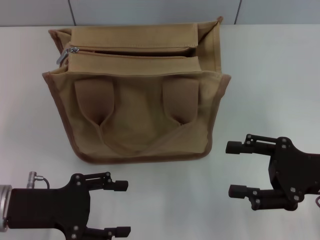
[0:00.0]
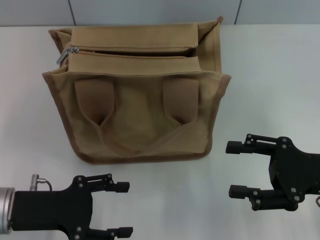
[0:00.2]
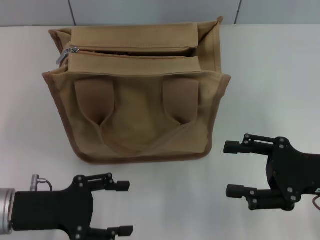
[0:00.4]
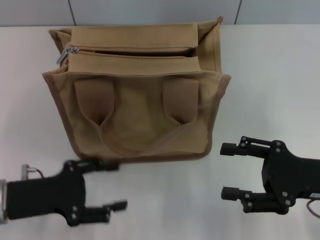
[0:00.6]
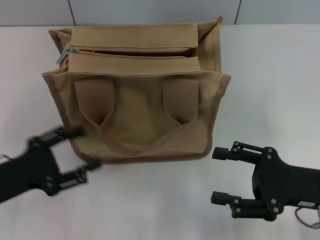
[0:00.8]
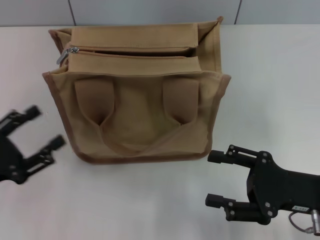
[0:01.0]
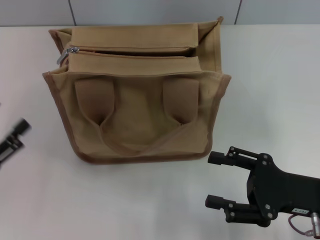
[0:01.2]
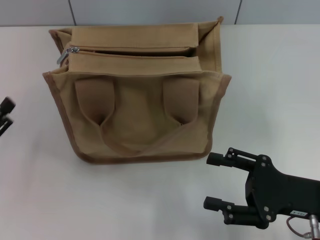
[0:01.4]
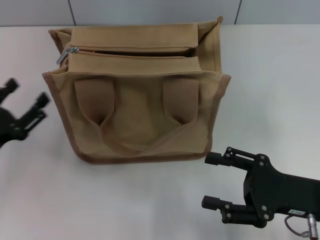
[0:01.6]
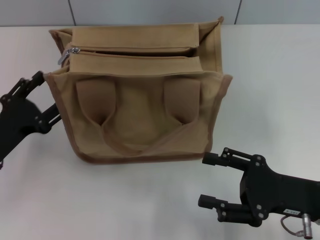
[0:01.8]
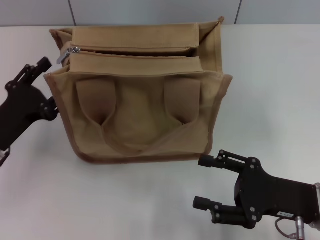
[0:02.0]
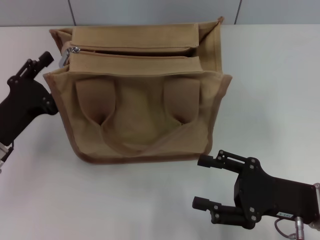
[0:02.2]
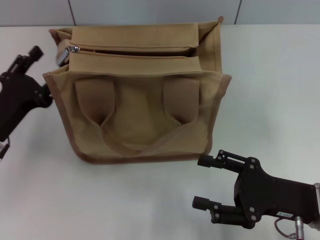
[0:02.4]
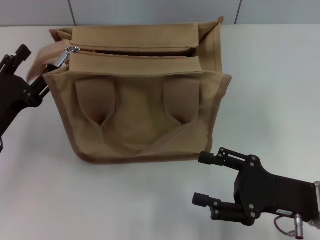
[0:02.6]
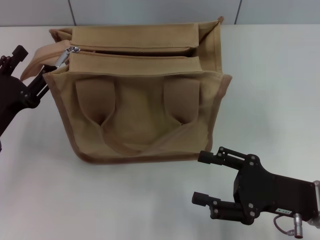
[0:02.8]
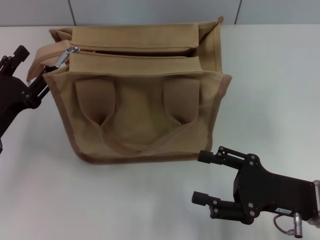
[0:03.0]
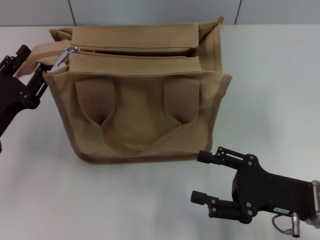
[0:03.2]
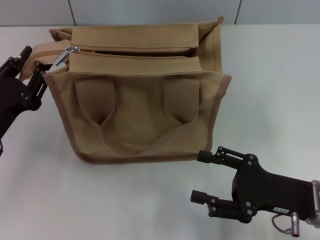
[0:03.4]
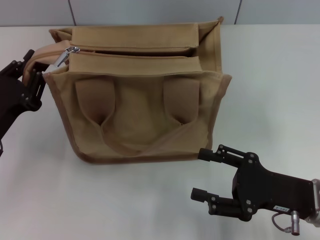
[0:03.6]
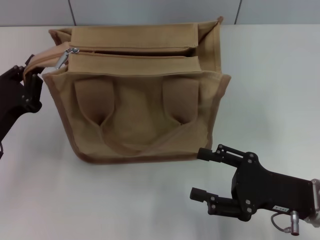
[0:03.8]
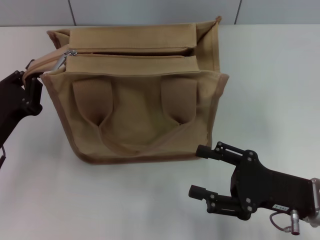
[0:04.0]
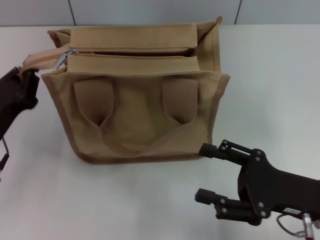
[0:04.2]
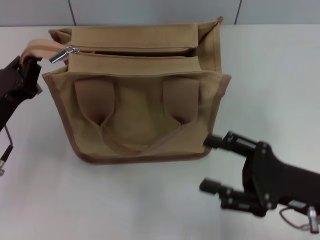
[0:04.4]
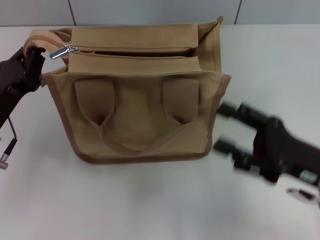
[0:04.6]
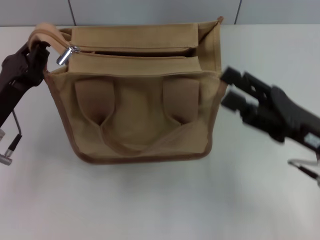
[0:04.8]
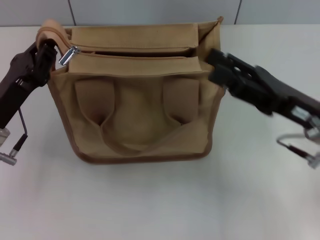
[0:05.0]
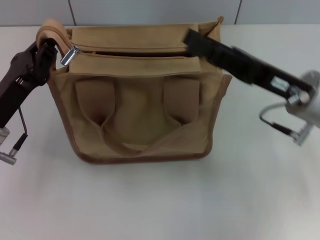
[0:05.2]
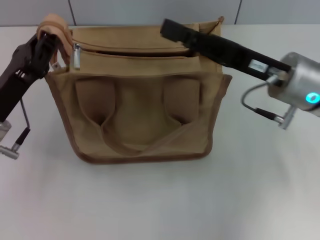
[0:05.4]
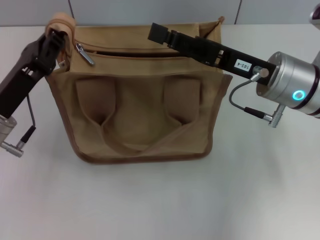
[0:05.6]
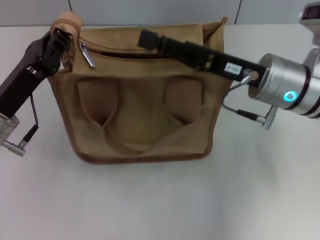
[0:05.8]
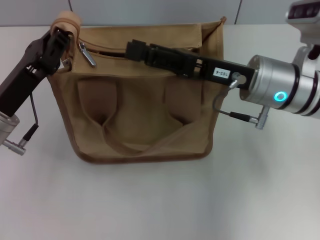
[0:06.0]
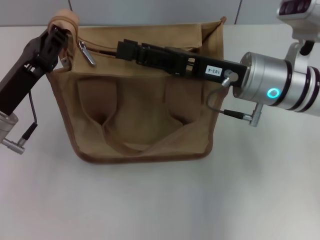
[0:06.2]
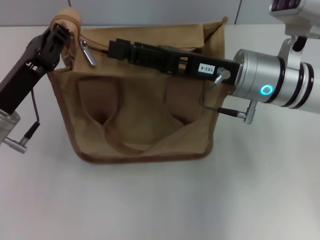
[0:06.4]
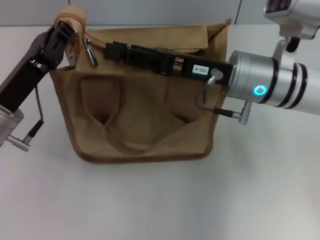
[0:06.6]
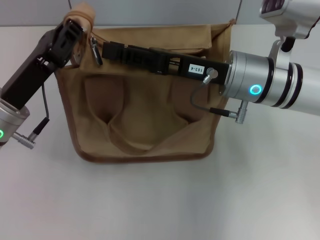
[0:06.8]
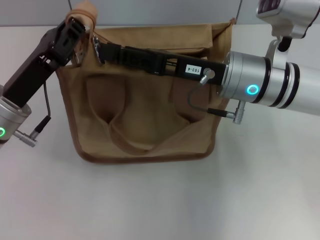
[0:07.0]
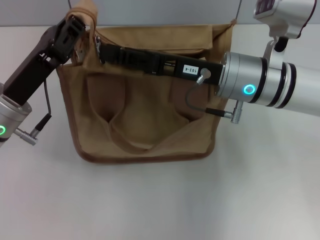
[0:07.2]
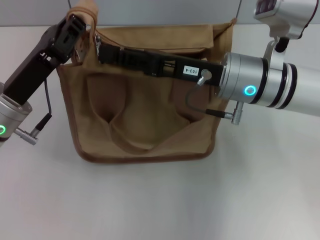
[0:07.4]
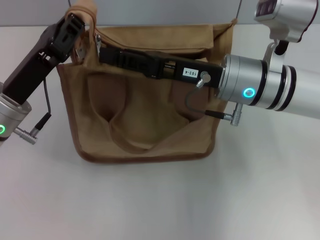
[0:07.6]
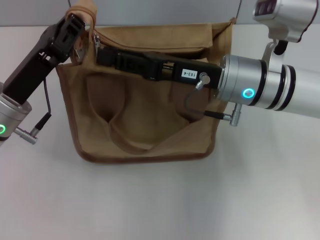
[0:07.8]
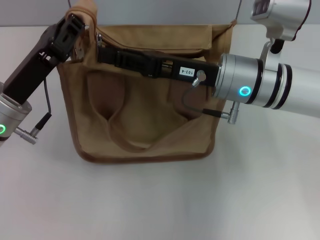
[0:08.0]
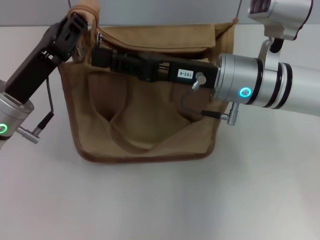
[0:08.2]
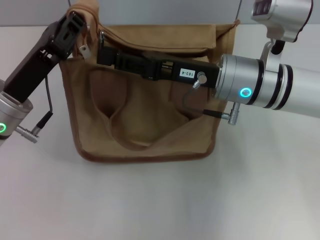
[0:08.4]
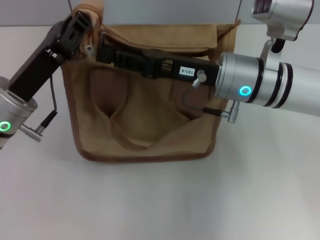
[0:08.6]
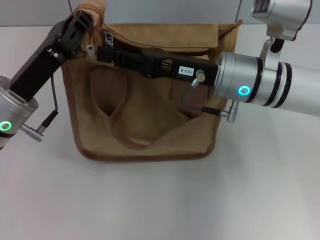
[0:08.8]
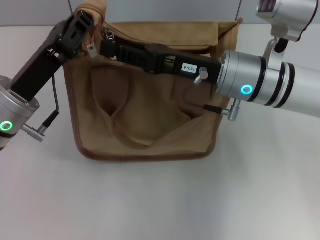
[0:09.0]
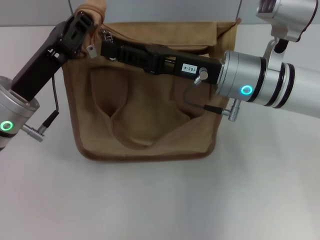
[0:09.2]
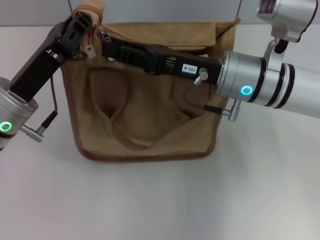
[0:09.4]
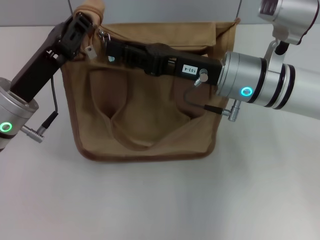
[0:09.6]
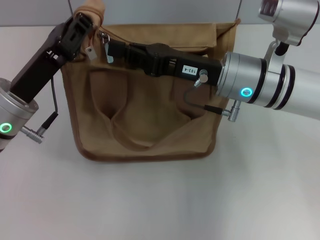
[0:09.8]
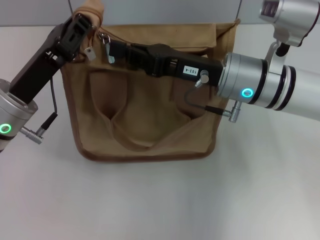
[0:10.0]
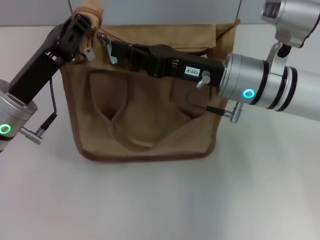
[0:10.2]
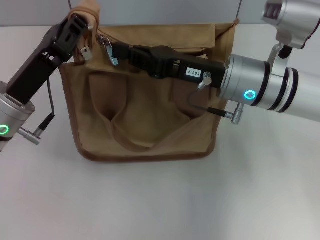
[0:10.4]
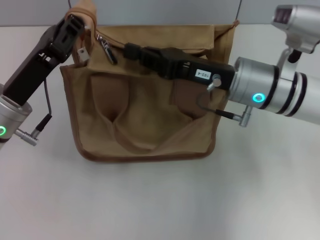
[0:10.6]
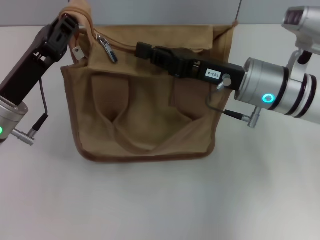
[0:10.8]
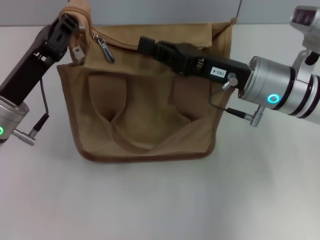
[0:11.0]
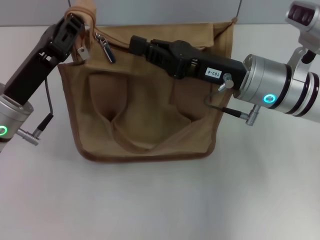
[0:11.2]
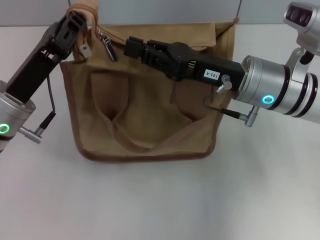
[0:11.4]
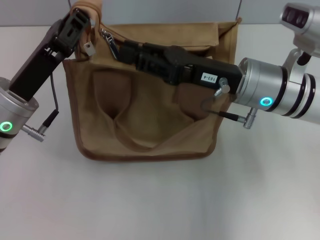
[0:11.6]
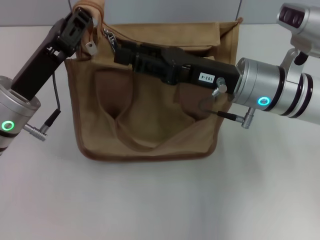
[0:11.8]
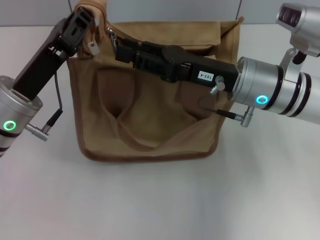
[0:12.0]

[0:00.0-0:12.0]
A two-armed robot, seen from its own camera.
0:00.0 to 0:01.6: The right gripper ends up about 5 cm from where it was.
0:01.6 to 0:03.0: The grippers make only small movements.
0:03.0 to 0:04.4: The left gripper closes up.
0:04.4 to 0:06.0: The left gripper ends up some 5 cm from where it was; the right gripper heads forward, to the left and upward, covering about 15 cm.
0:06.0 to 0:07.6: The right gripper closes its fingers.
0:07.6 to 0:09.0: Both grippers stay about where they are.
0:09.0 to 0:10.4: The right gripper closes up.
0:10.4 to 0:12.0: The right gripper opens.

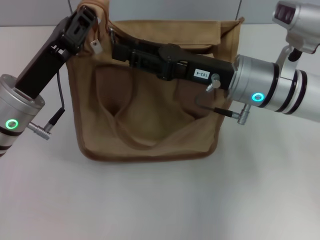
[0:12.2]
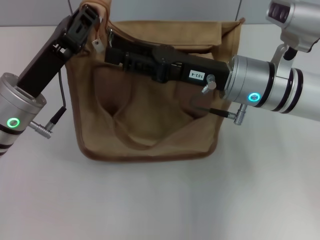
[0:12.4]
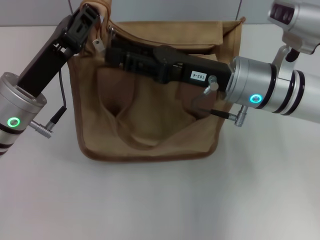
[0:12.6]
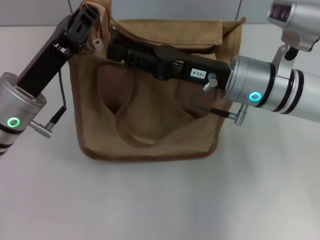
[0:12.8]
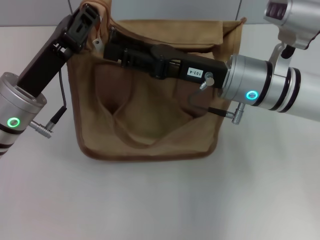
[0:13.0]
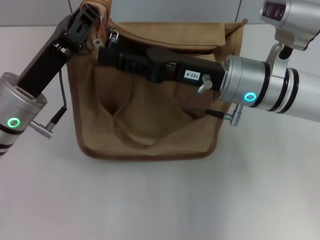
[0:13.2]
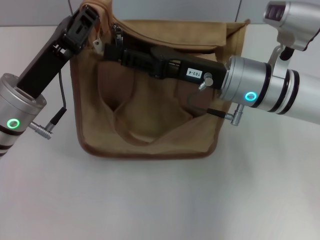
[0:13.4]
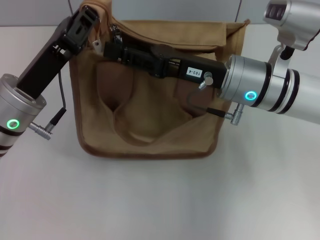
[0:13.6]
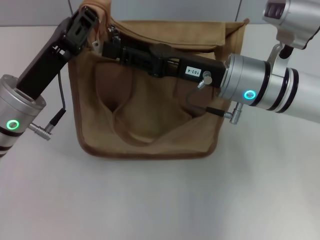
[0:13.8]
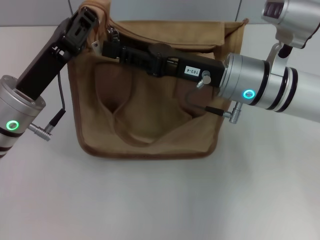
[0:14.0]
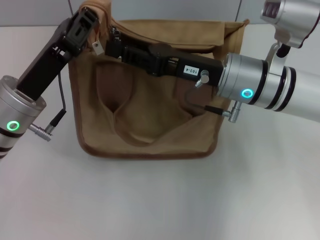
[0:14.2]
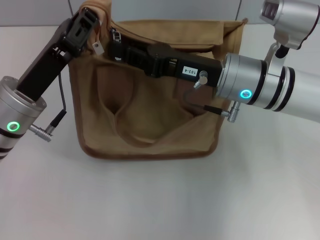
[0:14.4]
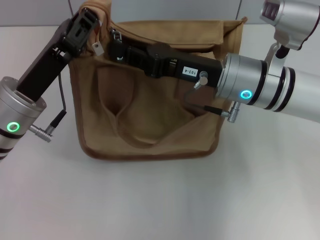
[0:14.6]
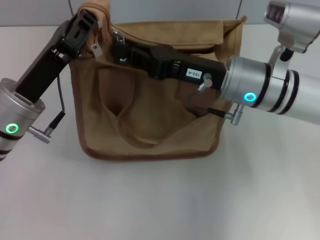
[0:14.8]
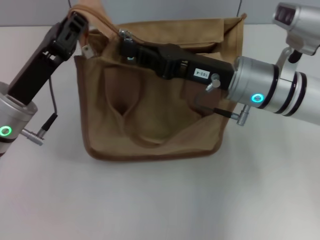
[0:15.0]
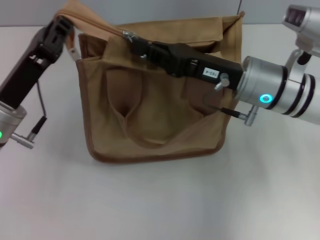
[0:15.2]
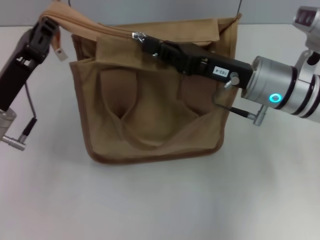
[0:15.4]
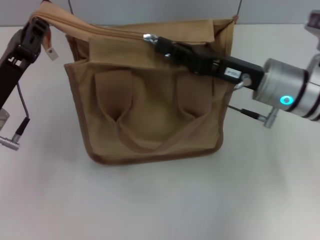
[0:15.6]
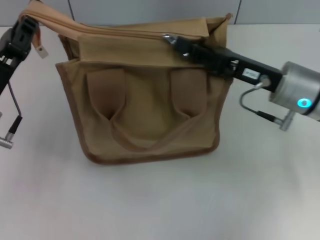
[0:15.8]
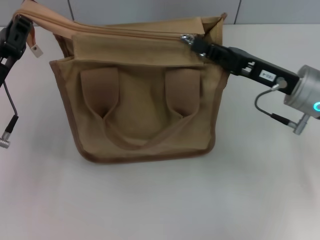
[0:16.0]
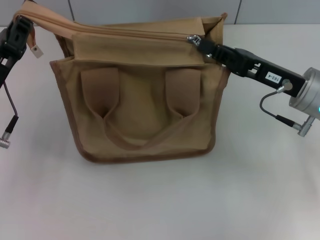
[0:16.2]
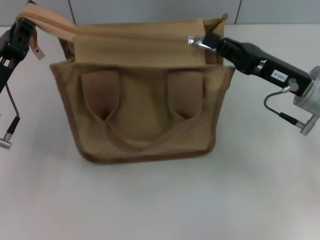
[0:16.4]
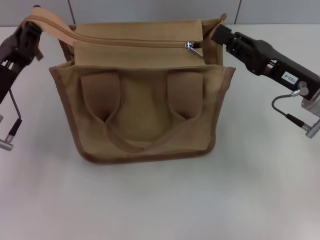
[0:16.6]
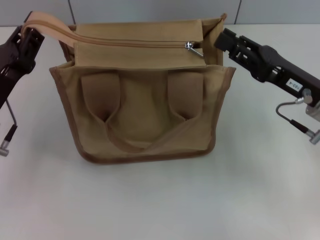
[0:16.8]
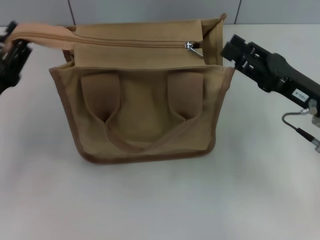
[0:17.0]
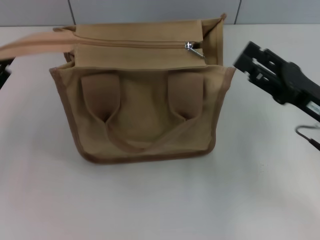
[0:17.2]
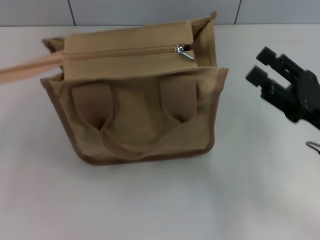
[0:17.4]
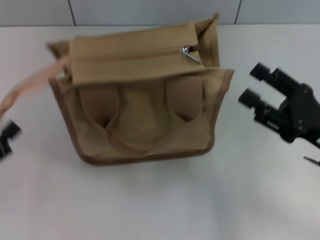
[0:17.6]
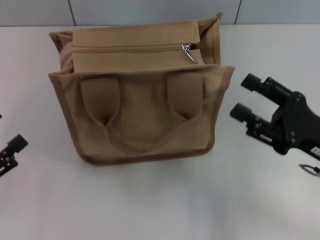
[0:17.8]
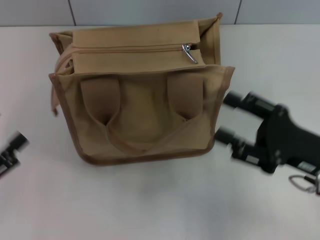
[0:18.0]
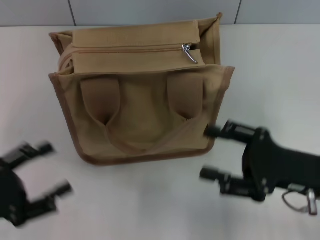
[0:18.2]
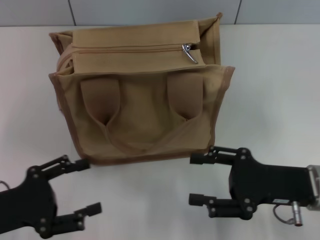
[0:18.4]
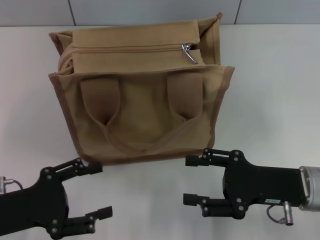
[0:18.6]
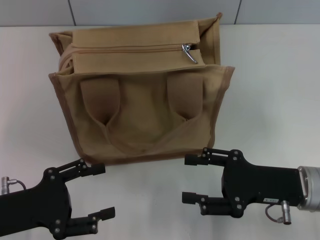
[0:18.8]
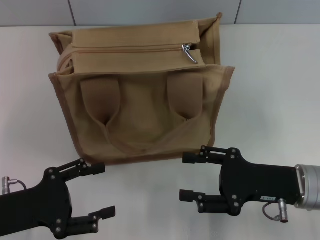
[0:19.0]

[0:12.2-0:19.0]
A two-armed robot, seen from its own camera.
Step, 0:12.2 to 0:16.8: Pull up the zipper with your right hand.
Step, 0:17.0 to 0:17.6: Grab the zipper with your left hand.
0:12.2 to 0:13.6: Neither gripper changes place.
0:13.6 to 0:15.0: The right gripper closes up.
0:15.0 to 0:16.2: The right gripper moves to the right, some 10 cm.
0:16.2 to 0:17.6: The right gripper shifts approximately 10 cm backward, and opens; the left gripper heads backward and to the left, covering approximately 15 cm, and opens its fingers.
0:17.6 to 0:19.0: The right gripper moves some 5 cm, while the left gripper moves to the right, roughly 5 cm.

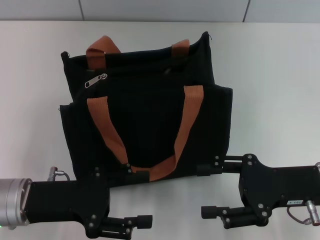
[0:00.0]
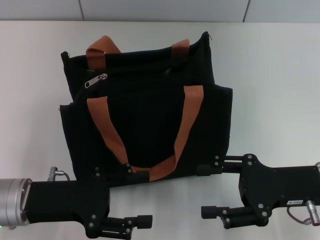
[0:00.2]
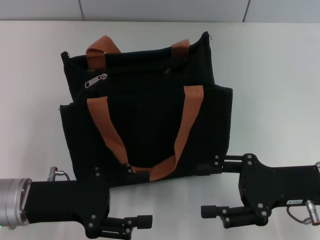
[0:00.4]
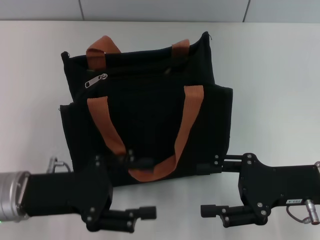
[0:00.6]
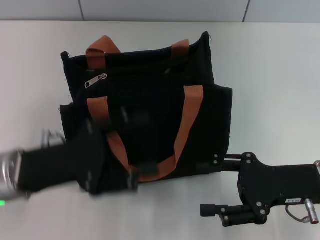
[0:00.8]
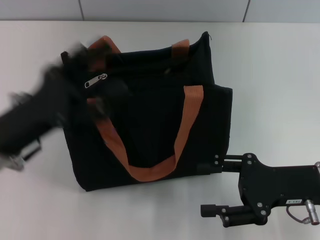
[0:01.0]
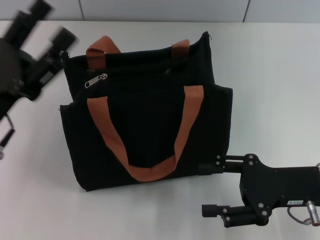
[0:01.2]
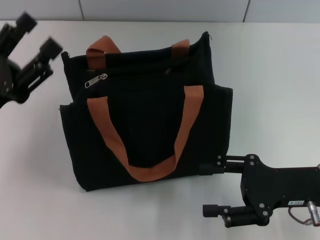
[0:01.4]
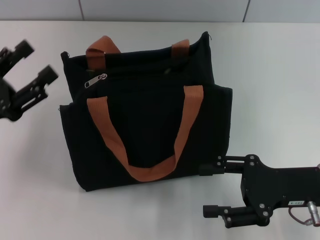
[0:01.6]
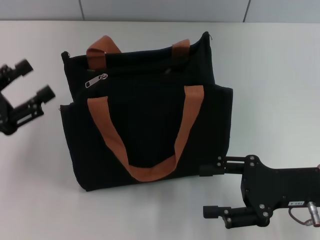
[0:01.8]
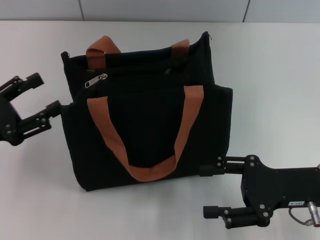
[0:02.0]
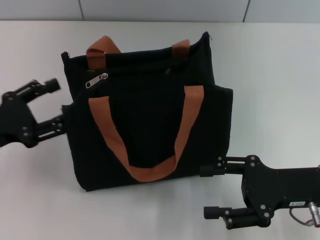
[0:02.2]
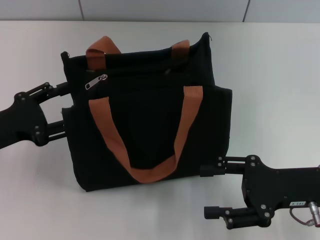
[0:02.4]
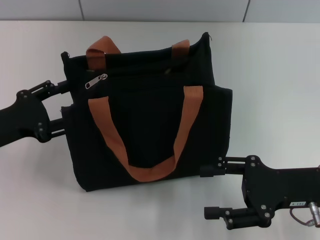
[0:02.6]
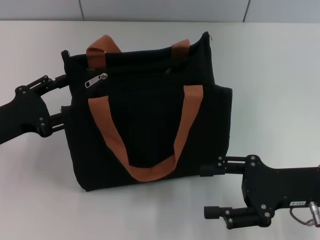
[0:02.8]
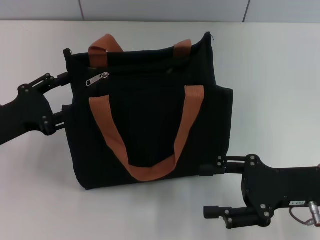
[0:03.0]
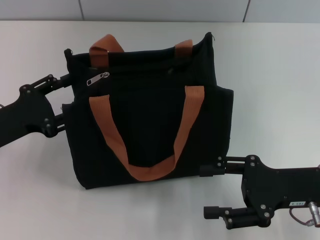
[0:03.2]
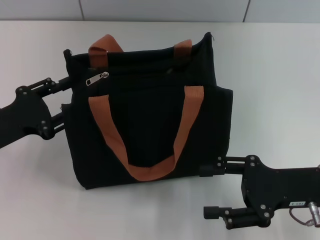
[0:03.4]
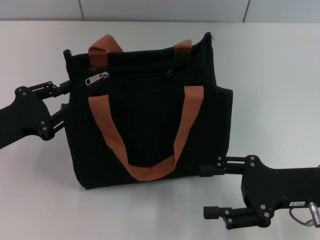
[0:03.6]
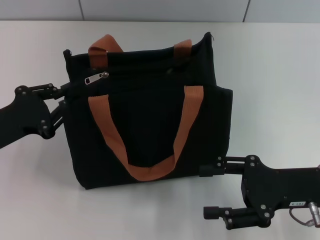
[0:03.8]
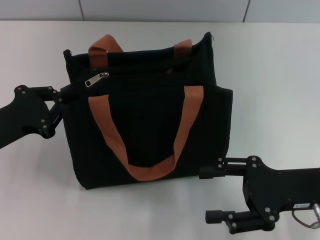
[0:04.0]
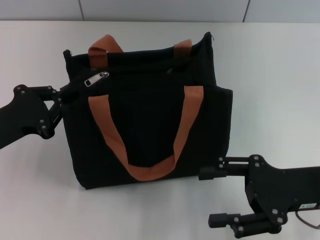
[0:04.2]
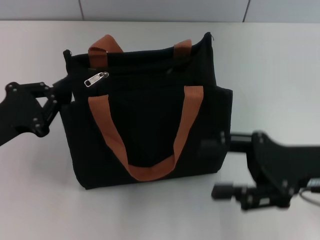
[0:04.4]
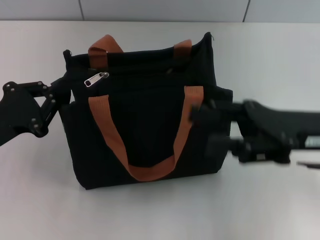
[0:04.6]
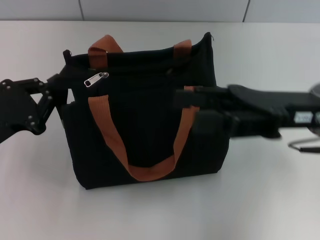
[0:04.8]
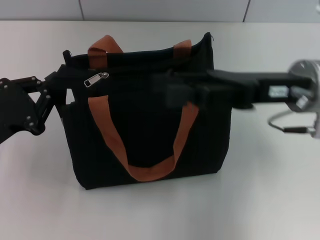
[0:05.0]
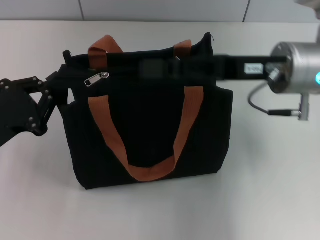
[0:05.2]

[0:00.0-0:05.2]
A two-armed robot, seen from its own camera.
0:00.0 to 0:01.8: The left gripper is displaced to the left by some 10 cm.
0:01.8 to 0:03.4: The grippers move only a little.
0:03.4 to 0:05.2: The left gripper closes its fingers, while the right gripper heads forward, upward and to the left, covering approximately 15 cm.
